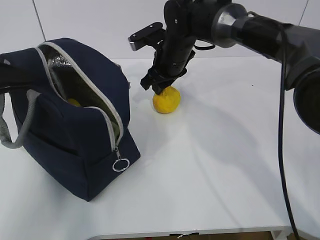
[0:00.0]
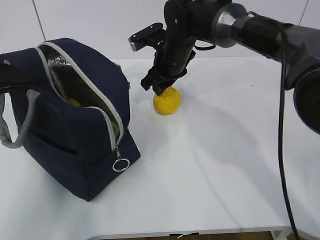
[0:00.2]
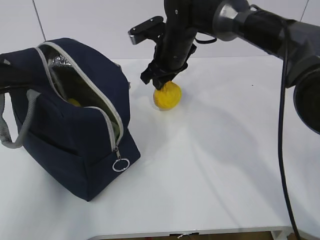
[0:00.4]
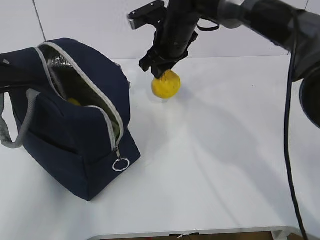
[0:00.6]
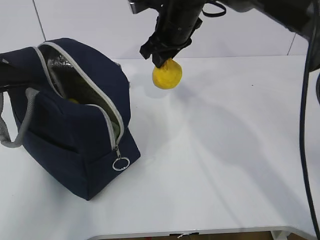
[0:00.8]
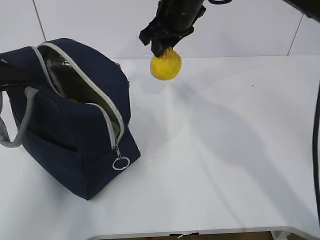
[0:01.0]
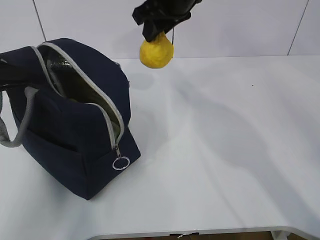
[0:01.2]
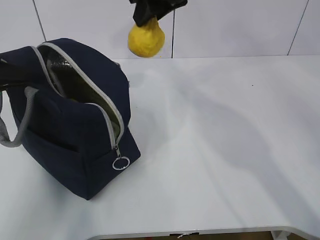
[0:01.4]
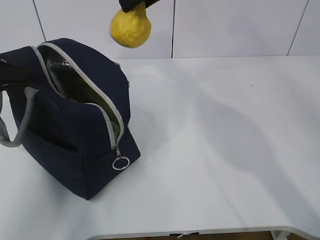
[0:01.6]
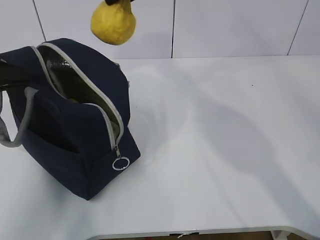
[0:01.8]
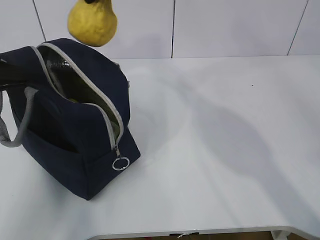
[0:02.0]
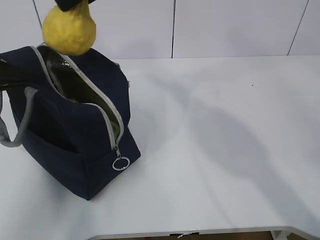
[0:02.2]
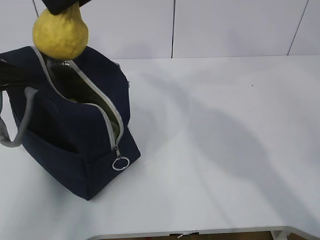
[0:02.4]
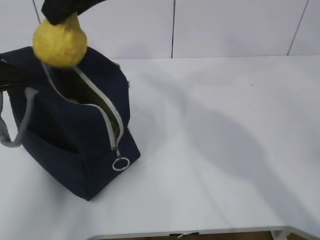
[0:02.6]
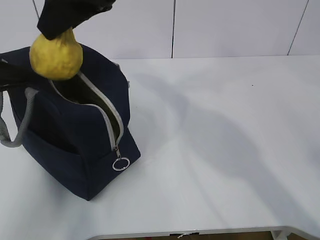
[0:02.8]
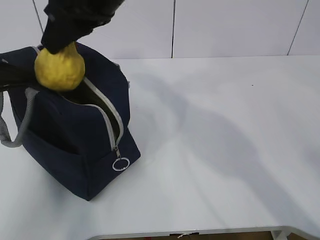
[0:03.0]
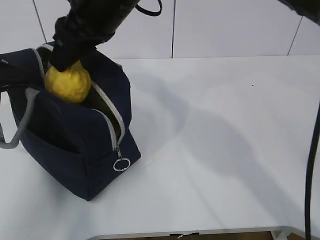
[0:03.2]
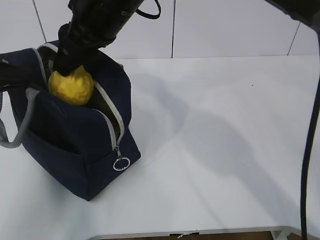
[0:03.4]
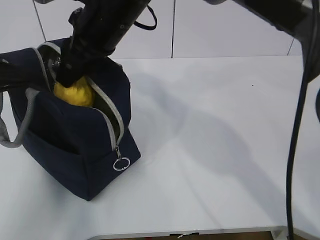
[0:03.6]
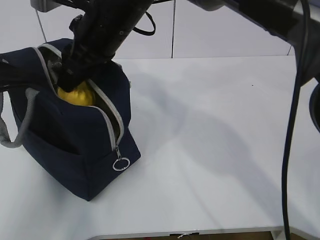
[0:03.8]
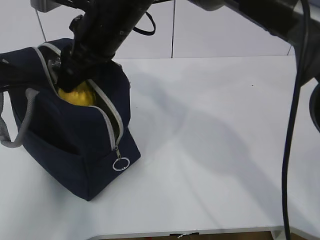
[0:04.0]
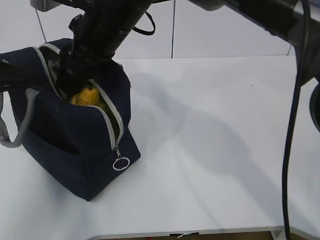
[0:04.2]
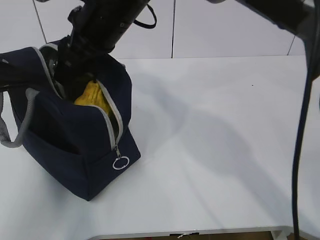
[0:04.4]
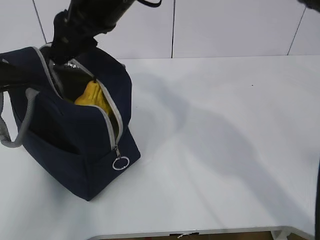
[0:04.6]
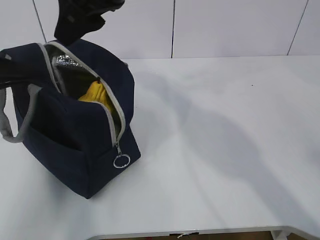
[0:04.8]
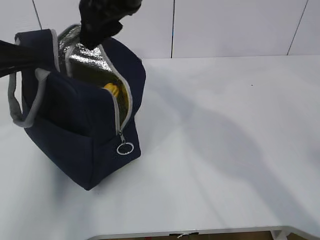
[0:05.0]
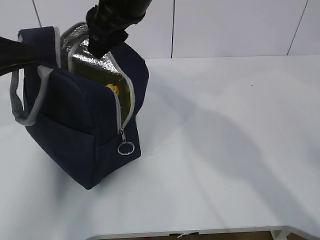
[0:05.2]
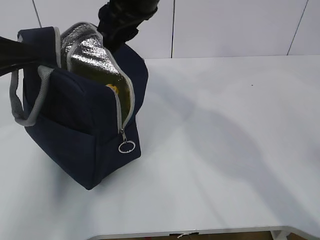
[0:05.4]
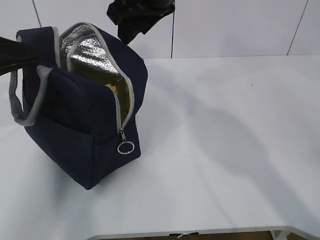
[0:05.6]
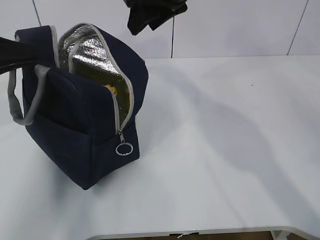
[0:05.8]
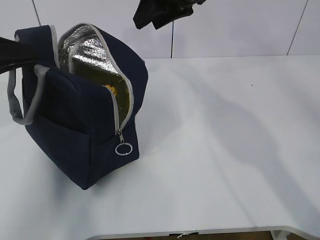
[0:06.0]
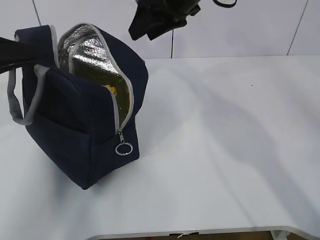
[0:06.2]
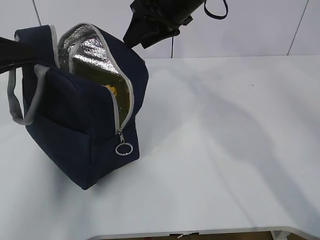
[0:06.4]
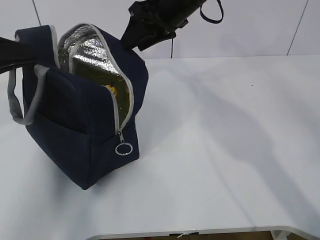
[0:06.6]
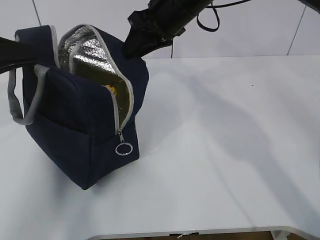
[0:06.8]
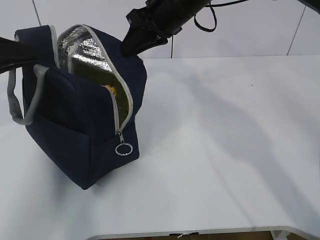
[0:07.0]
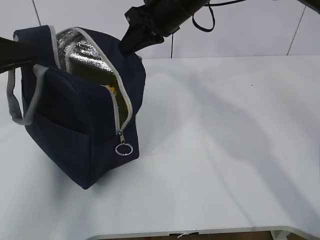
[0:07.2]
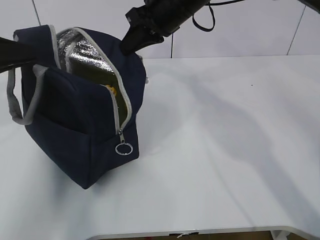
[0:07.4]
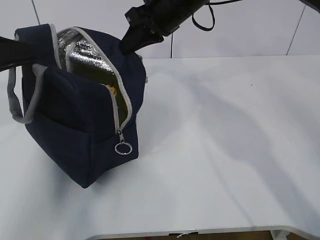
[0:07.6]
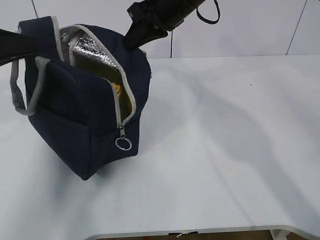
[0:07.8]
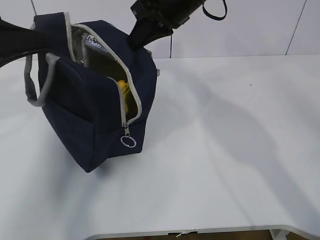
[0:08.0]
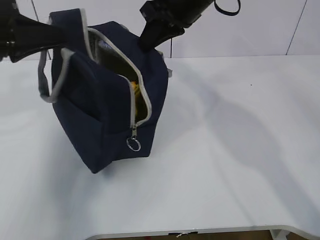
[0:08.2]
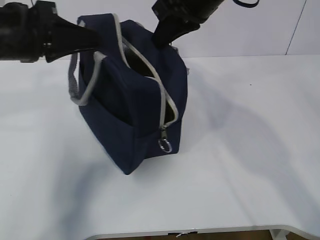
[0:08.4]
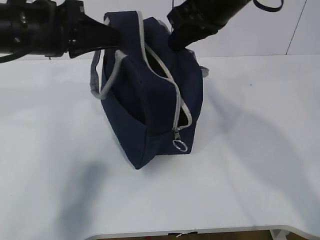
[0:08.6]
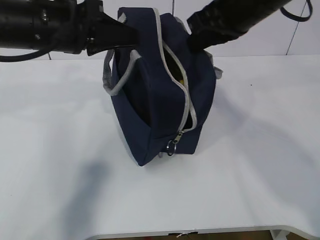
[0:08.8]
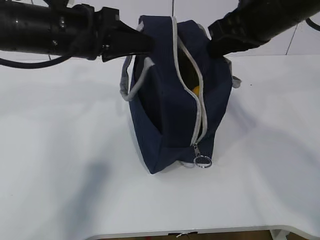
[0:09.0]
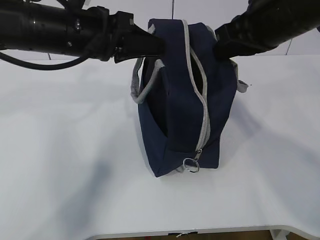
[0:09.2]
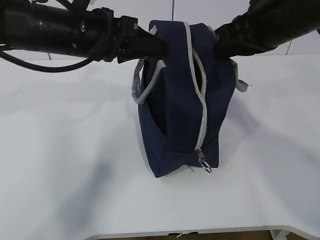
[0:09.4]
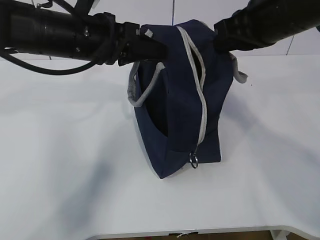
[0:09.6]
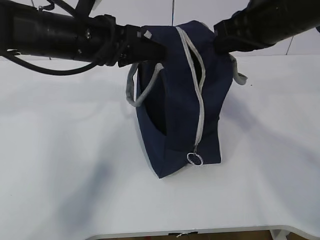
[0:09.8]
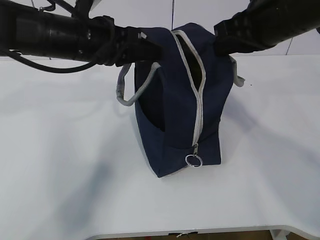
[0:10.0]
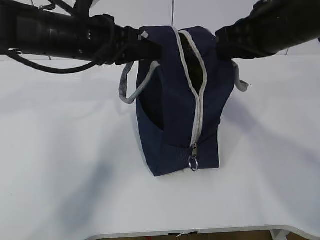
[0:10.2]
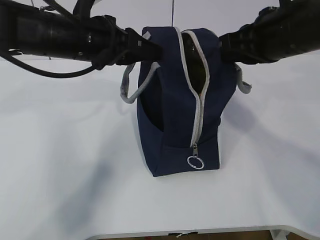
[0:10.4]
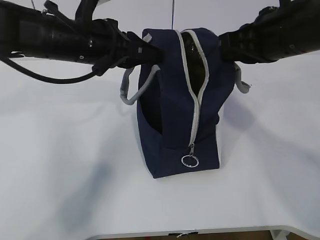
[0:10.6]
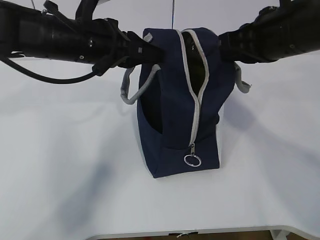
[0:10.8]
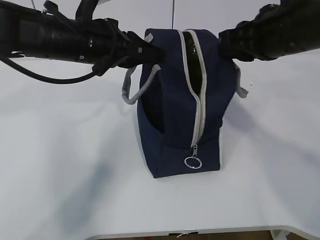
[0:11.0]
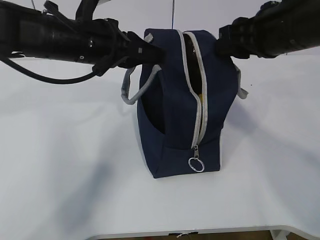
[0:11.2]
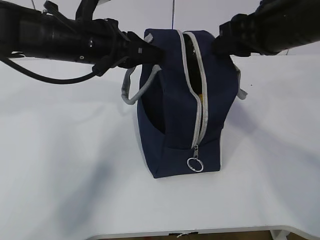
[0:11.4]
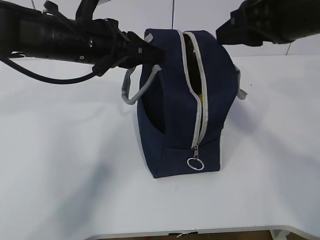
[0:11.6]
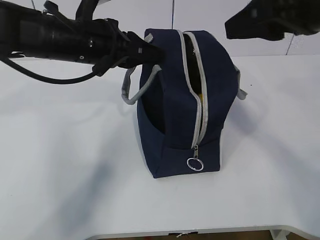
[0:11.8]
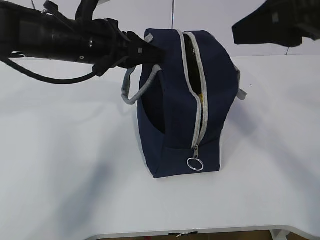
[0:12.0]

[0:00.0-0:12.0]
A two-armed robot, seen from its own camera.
0:00.0 to 0:01.6: The right gripper heads upward and backward, covering some 20 cm.
0:01.6 to 0:03.0: The right gripper is displaced to the left and backward by about 10 cm.
0:03.0 to 0:04.4: The right gripper moves roughly 5 cm.
0:04.4 to 0:06.0: The right gripper goes roughly 15 cm to the right and forward.
0:06.0 to 0:07.6: The right gripper is displaced downward by about 5 cm, and closes its fingers.
0:07.6 to 0:09.0: The left gripper shifts approximately 15 cm to the right and forward. Meanwhile the right gripper goes approximately 15 cm backward and to the right.
0:09.0 to 0:10.4: The grippers stay close to where they were, moving slightly.
0:10.4 to 0:12.0: The right gripper travels backward and upward by roughly 10 cm, and opens up.

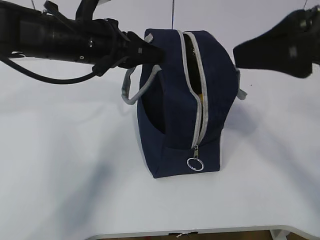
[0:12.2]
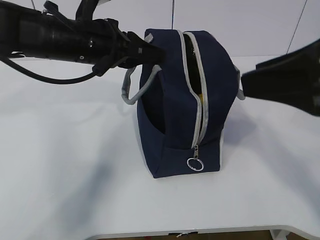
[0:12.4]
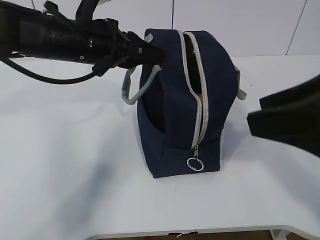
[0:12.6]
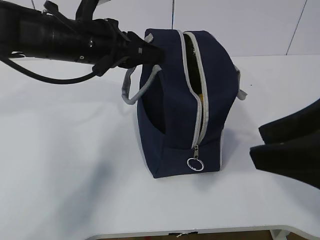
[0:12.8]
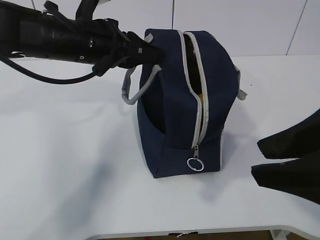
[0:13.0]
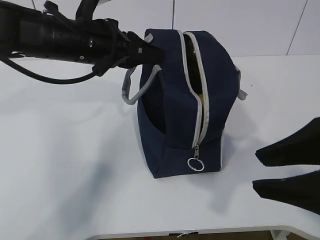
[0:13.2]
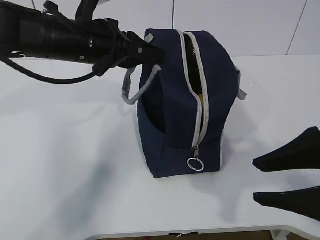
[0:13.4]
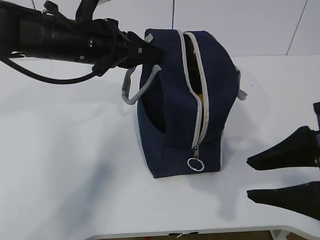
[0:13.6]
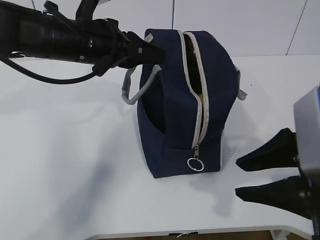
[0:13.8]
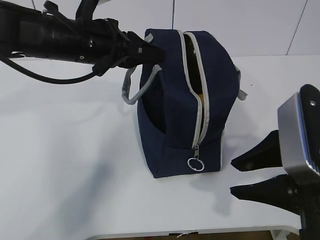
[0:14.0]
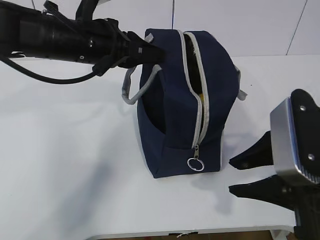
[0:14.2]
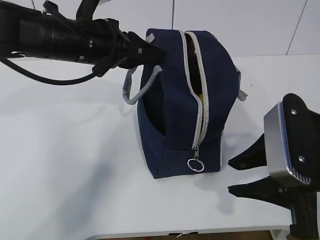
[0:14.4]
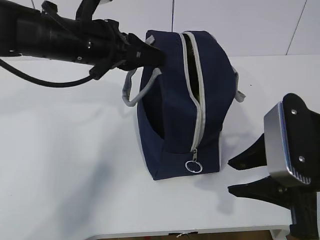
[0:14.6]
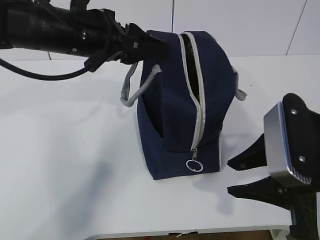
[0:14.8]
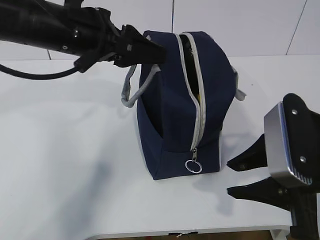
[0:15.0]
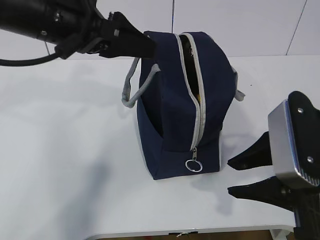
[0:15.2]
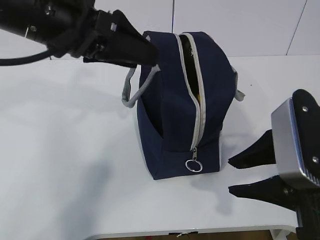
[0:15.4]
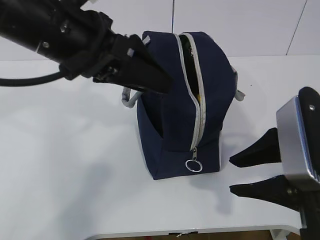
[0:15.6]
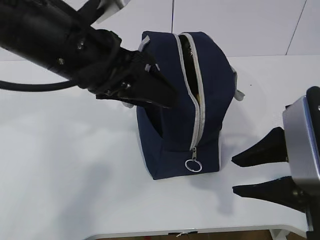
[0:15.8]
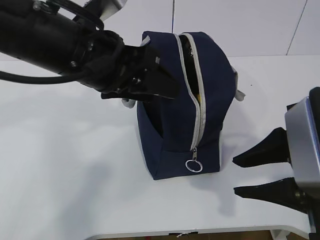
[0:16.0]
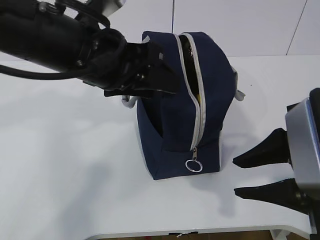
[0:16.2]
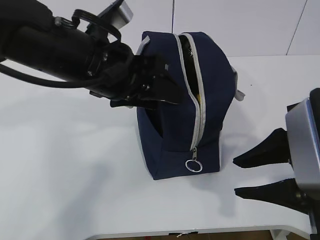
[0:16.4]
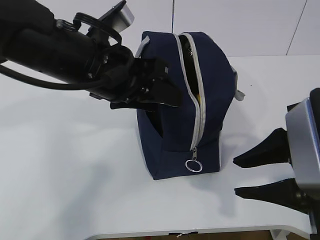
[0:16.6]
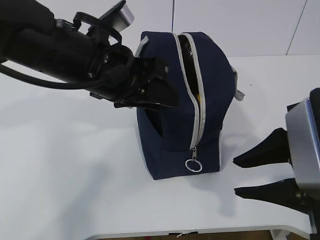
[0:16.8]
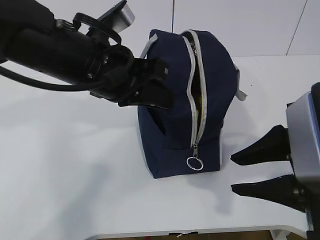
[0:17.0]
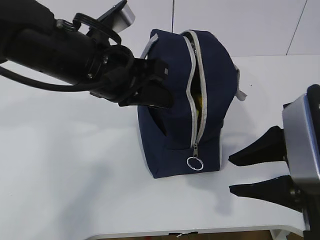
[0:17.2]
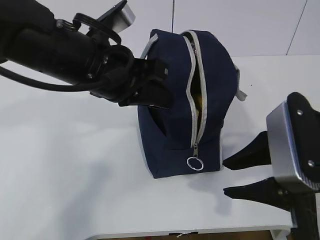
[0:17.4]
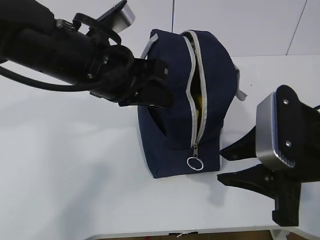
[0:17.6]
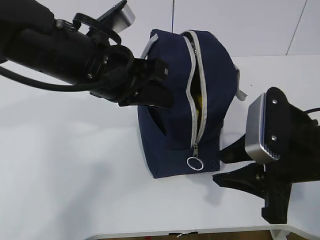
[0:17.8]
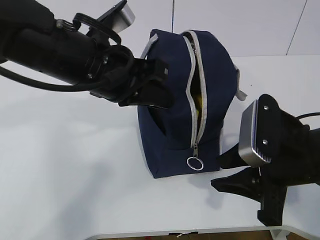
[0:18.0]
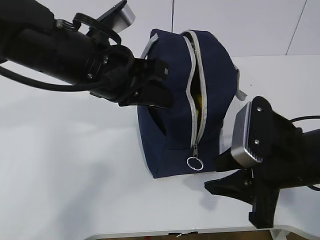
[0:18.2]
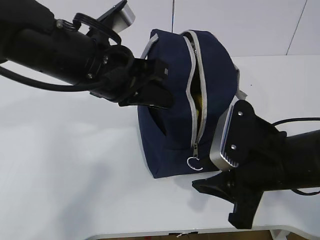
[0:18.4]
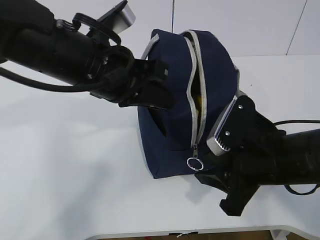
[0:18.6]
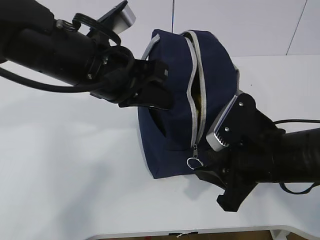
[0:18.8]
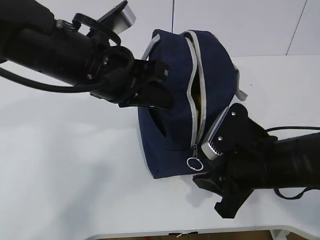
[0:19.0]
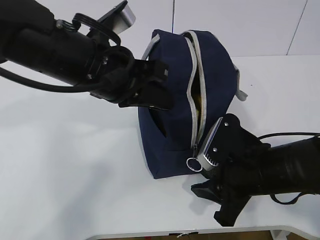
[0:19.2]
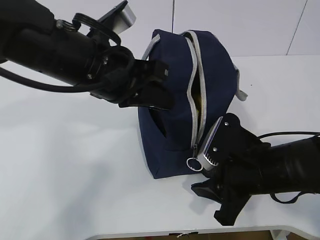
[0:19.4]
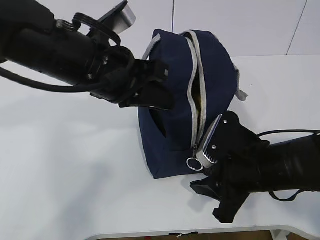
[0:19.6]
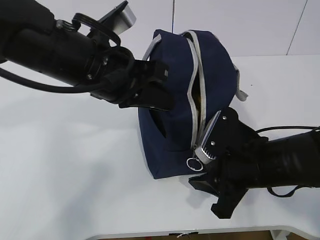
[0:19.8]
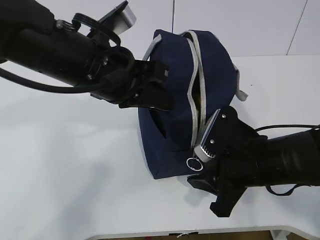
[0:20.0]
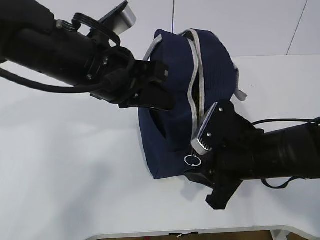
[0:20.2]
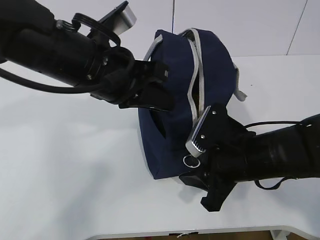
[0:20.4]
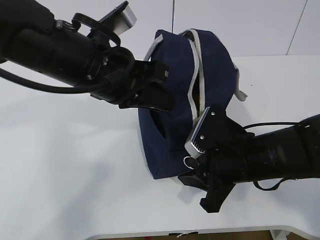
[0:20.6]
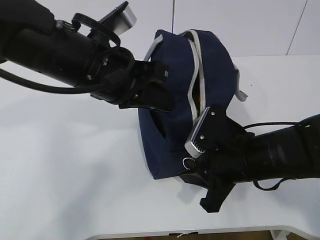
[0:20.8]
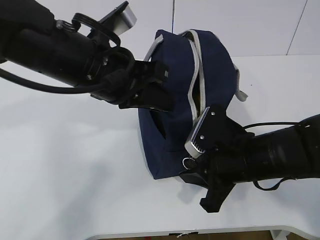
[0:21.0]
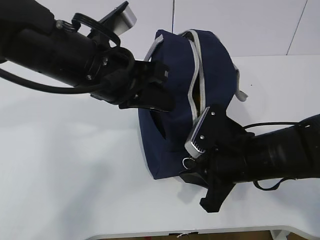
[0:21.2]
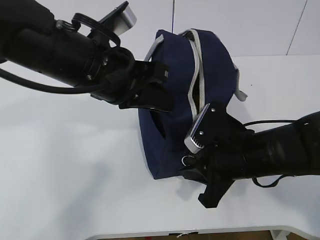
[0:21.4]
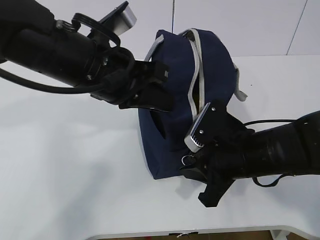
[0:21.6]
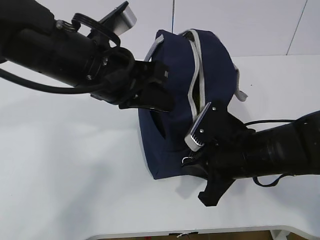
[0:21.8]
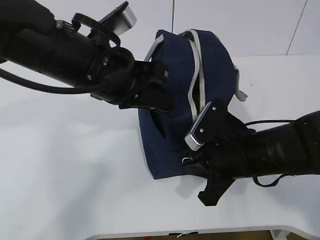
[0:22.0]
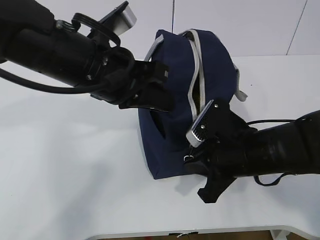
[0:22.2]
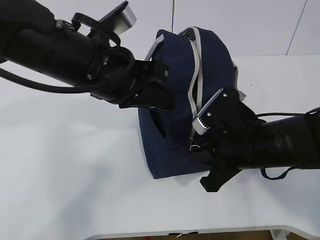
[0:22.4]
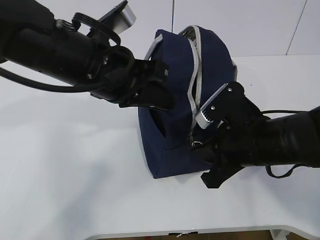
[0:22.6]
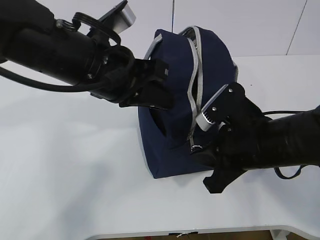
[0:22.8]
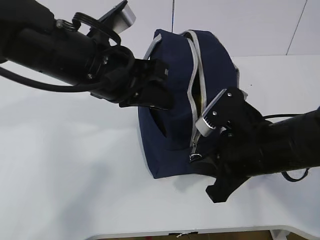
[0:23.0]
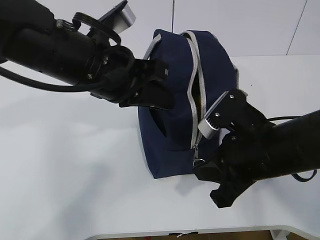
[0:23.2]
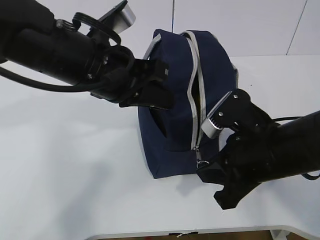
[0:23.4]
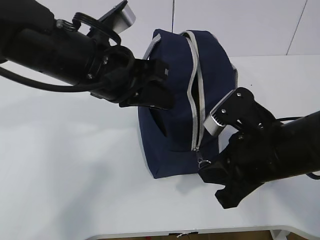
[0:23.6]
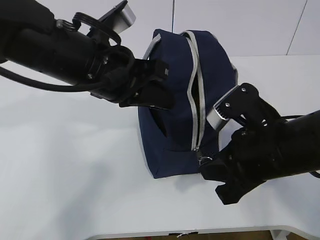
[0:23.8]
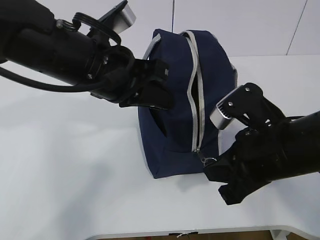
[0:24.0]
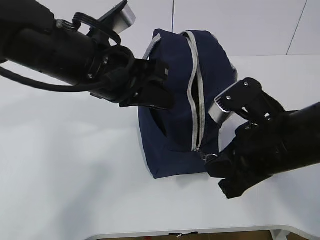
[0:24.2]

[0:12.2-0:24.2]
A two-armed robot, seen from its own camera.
Step, 0:12.2 to 0:23.0: Grab the lunch bag with your left hand.
0:12.2 to 0:13.8: The right gripper is displaced downward by some 10 cm.
0:13.8 to 0:15.2: The left gripper travels upward by about 5 cm, and opens up.
0:15.2 to 0:16.6: The left gripper shifts by some 5 cm.
0:16.6 to 0:18.2: The right gripper goes about 5 cm downward, while the left gripper closes its fingers.
0:18.2 to 0:19.8: The right gripper moves approximately 5 cm.
0:19.8 to 0:24.2: The grippers move only a little.
